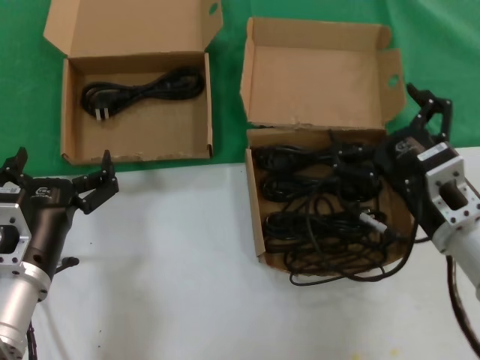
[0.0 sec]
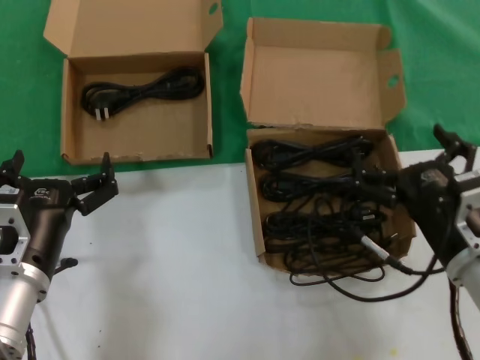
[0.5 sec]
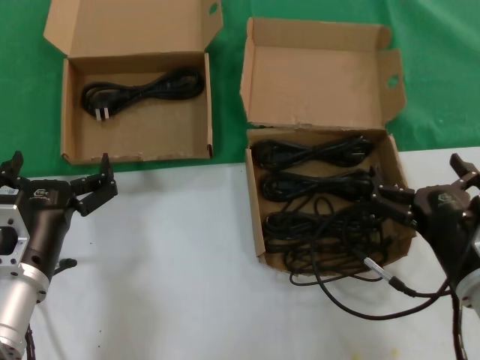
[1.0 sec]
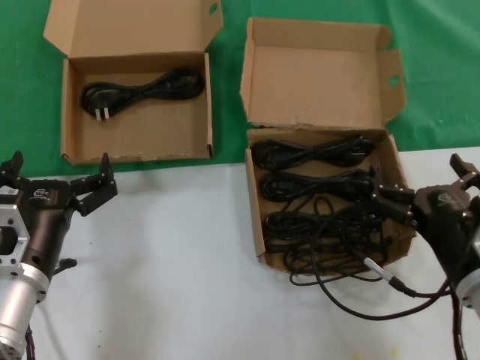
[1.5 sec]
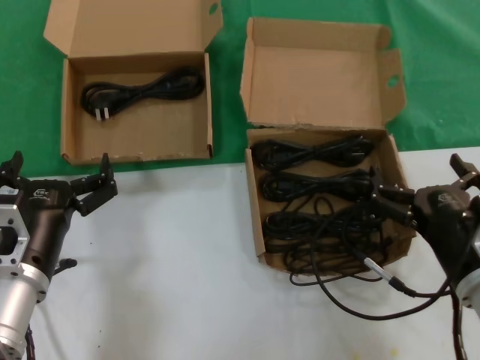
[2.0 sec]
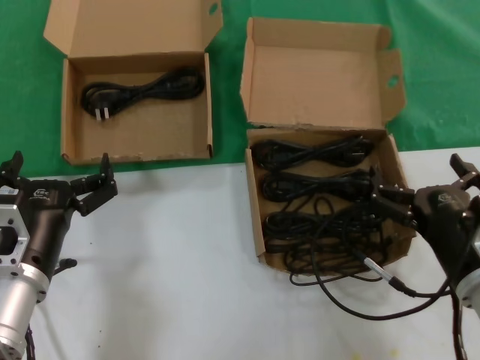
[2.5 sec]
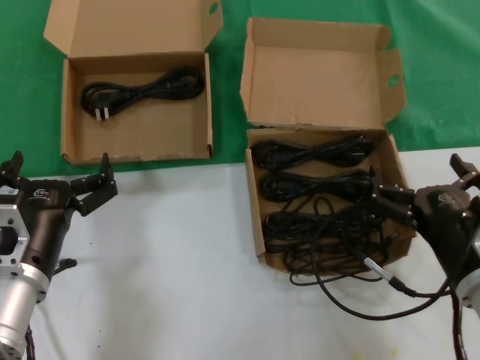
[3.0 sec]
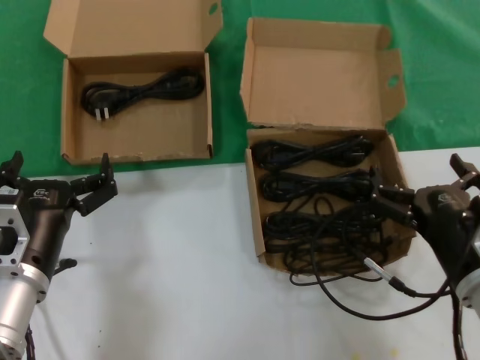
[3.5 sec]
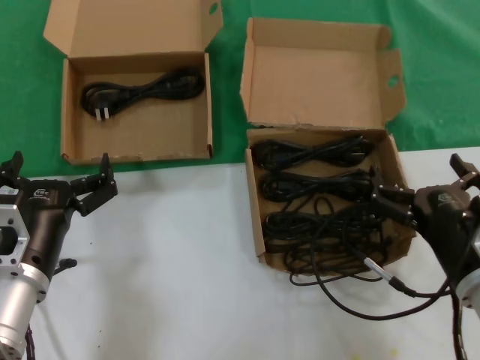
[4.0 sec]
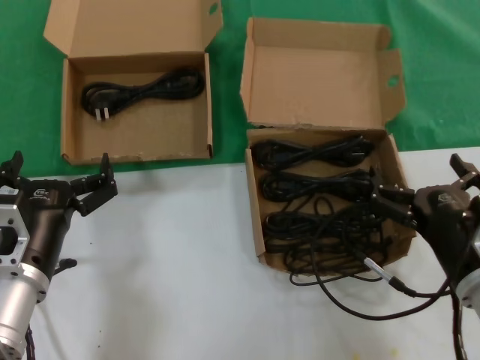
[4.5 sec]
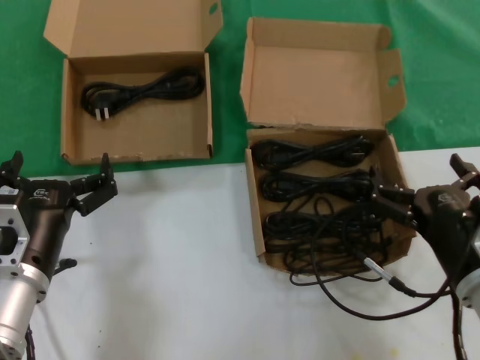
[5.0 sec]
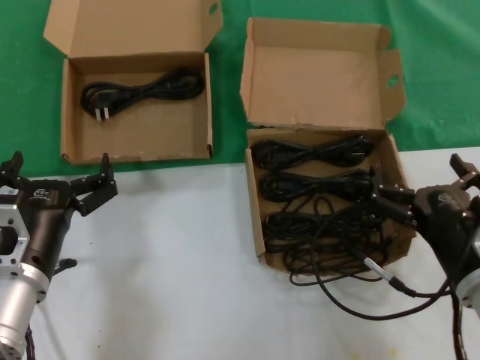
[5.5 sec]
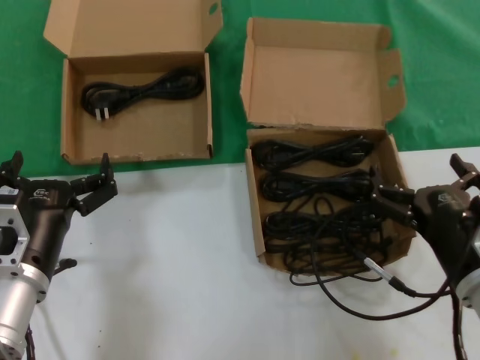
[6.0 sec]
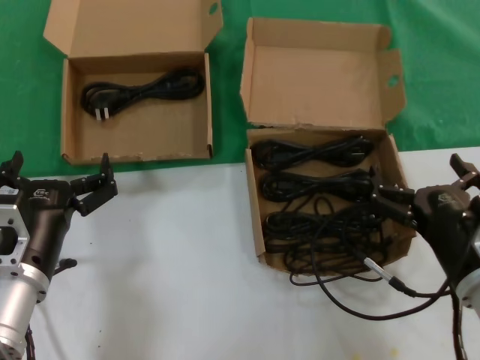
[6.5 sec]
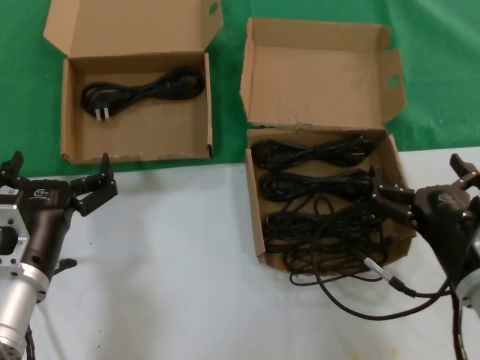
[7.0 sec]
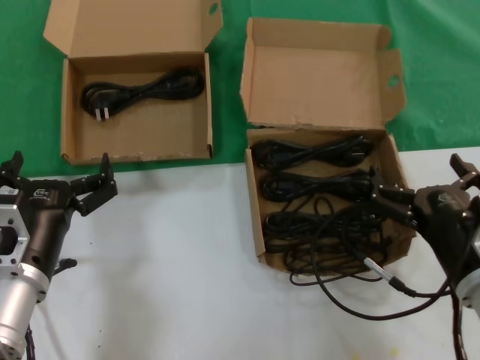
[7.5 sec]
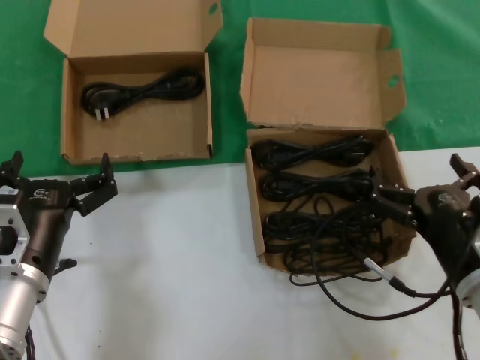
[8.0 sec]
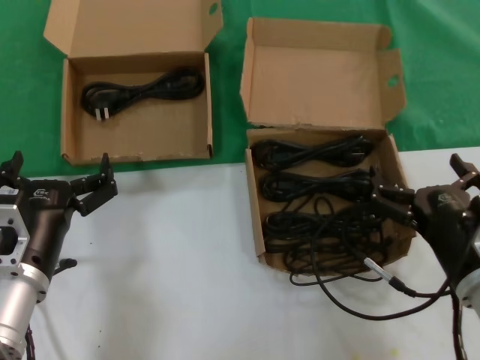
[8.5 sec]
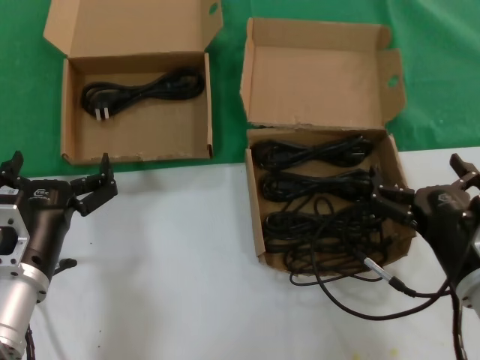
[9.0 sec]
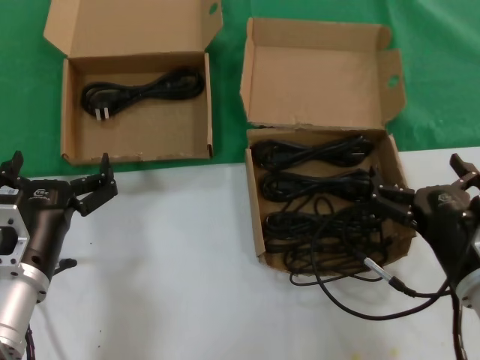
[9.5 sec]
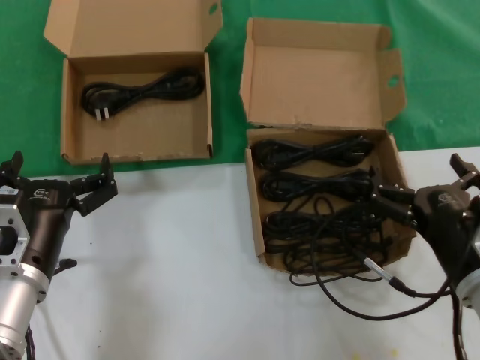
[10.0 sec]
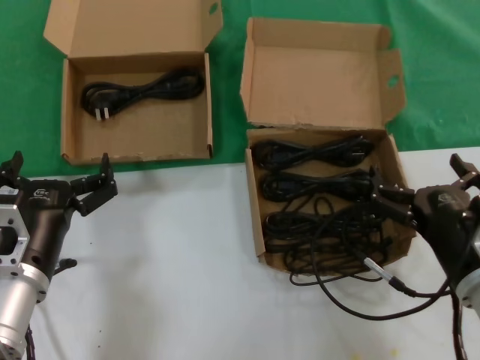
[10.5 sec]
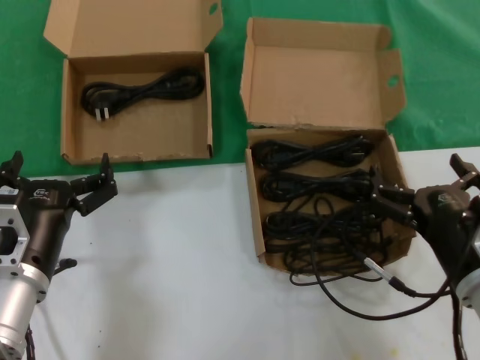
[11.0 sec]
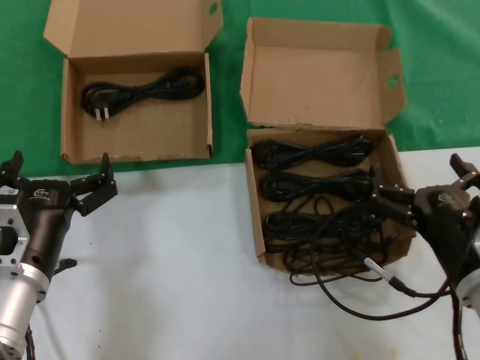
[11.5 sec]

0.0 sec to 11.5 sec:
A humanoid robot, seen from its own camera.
Task of the whole recording: take the parts from the box containing them and put them into an empty box.
0.0 sec to 2.0 sec: The right hand heads downward, covering some 5 cm.
2.0 sec to 11.5 sec: Neither hand changes place.
